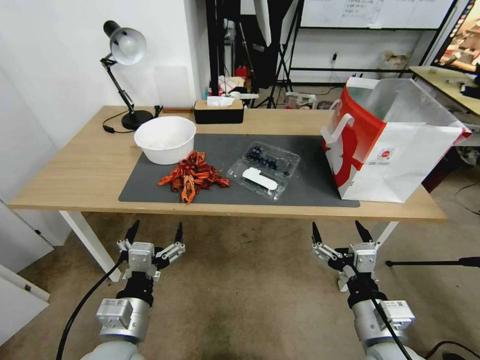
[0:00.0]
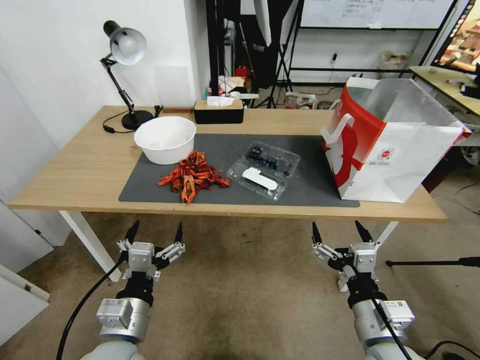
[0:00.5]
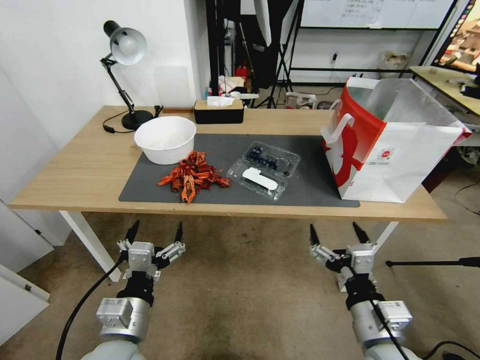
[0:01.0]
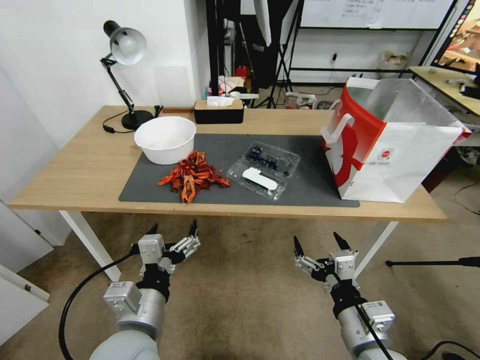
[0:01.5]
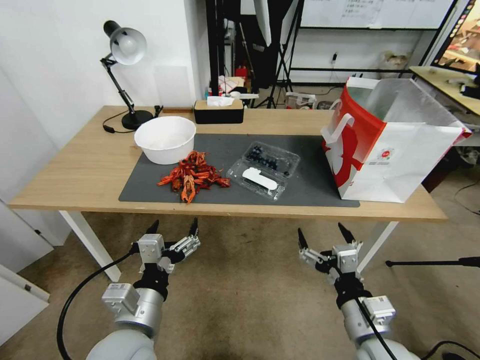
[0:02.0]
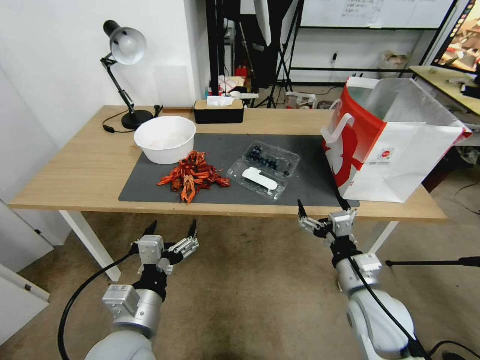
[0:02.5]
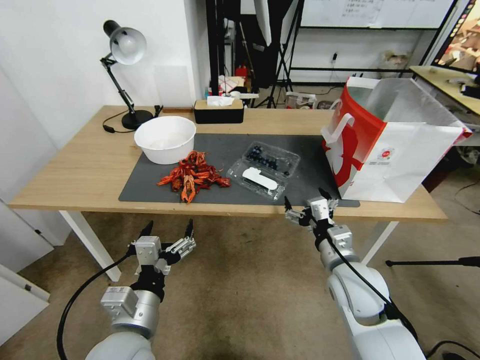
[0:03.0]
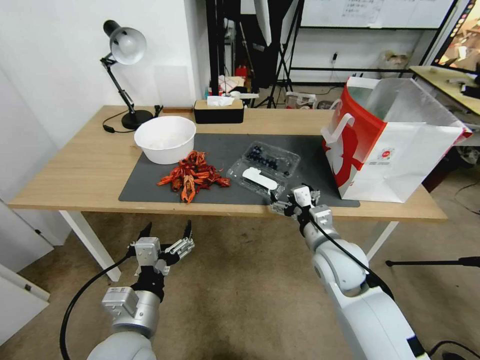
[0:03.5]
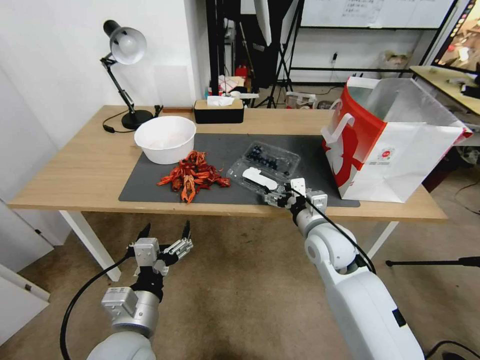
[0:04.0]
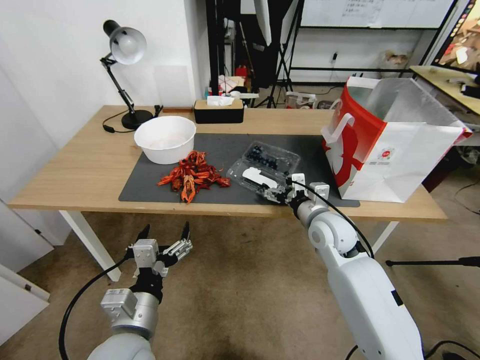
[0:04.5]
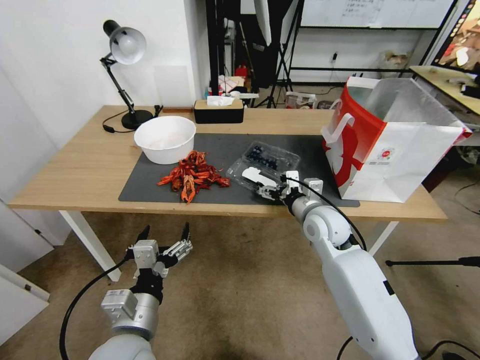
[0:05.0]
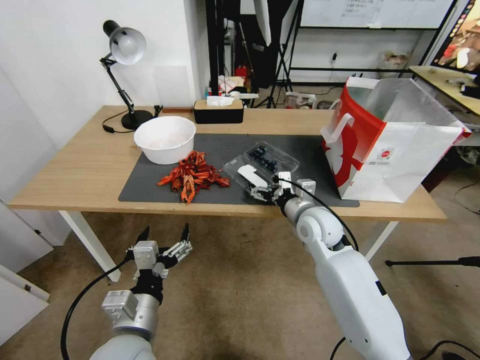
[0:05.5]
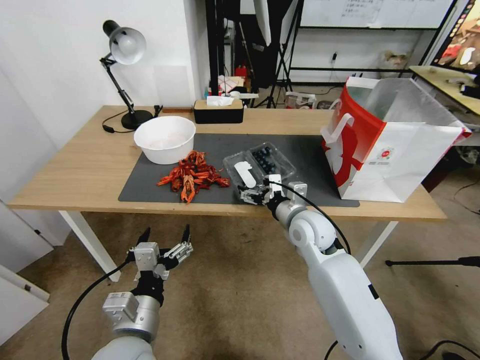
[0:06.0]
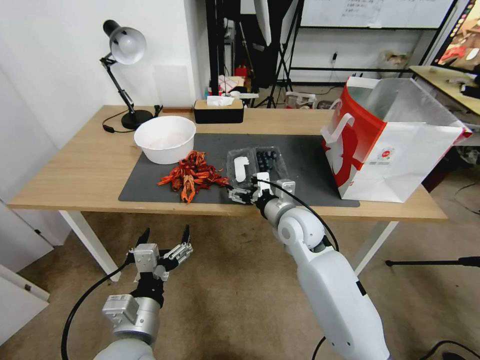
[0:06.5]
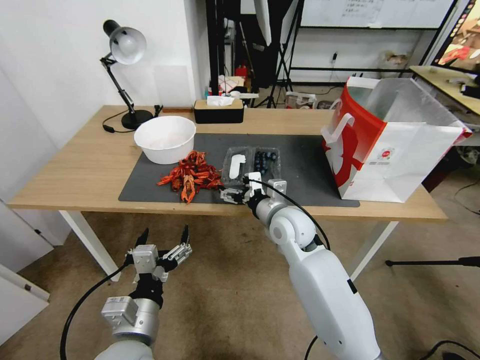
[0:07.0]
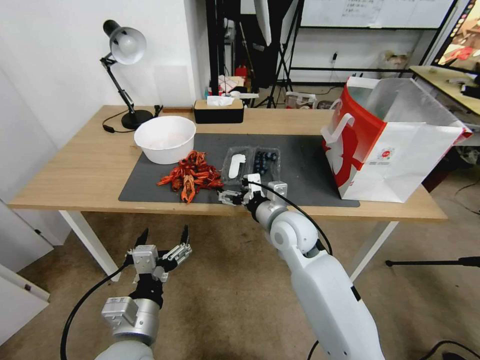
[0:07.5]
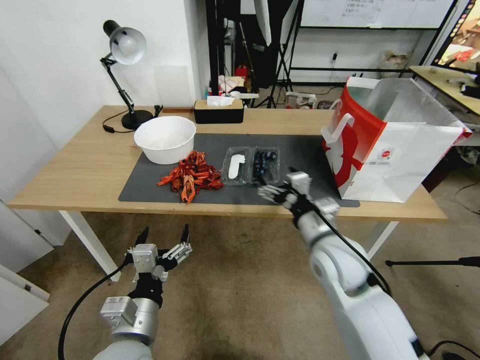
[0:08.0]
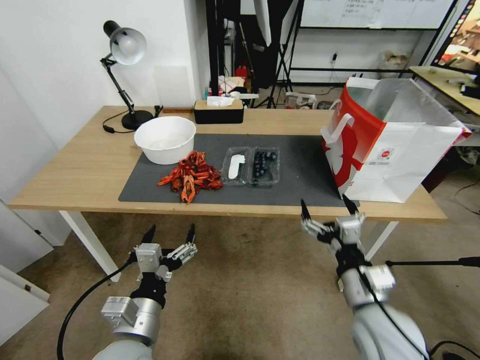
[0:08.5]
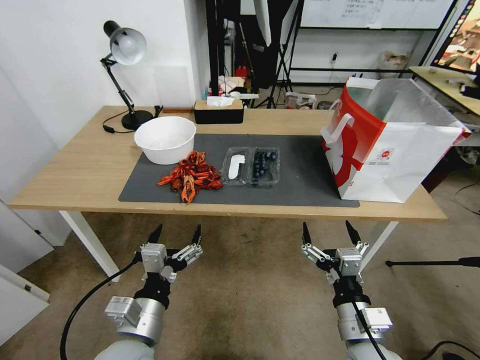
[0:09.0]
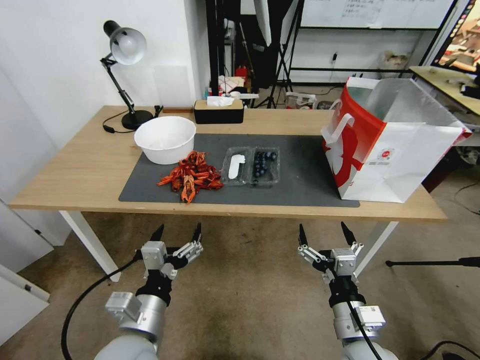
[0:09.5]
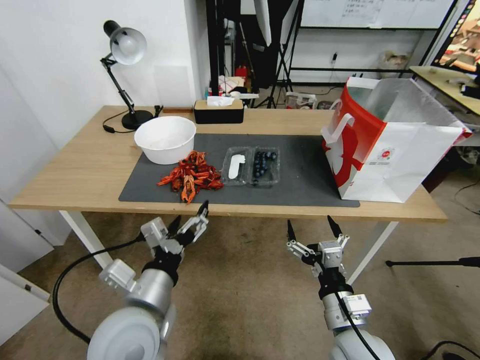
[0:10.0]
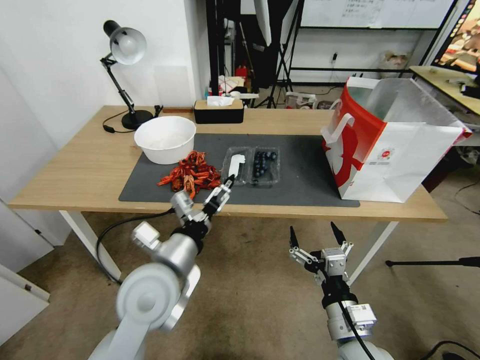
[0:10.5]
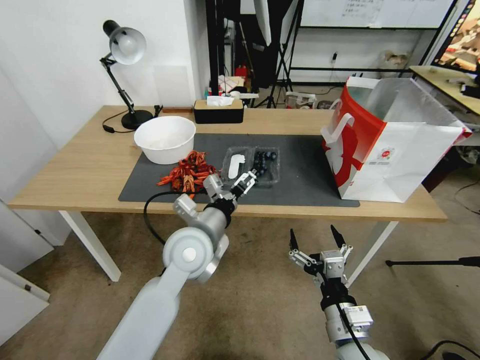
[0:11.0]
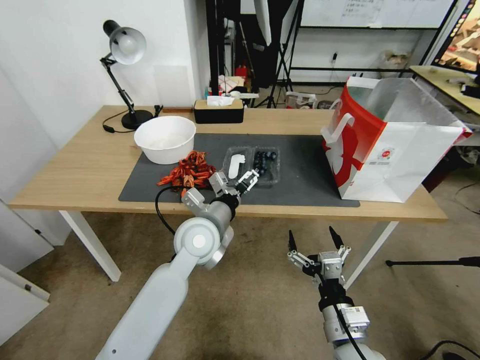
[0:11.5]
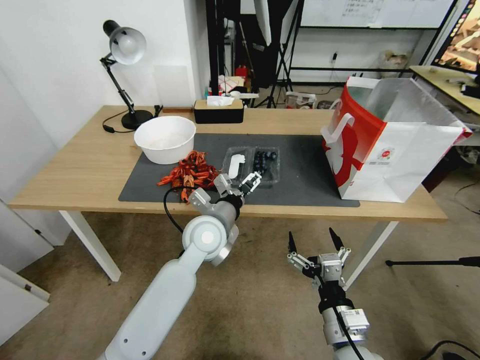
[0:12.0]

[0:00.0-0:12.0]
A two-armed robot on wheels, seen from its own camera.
Task of the whole recording: Close the takeout container lid, then place the container into the takeout bag.
0:02.0 to 0:04.0: The right gripper goes approximately 20 cm forward.
0:04.0 to 0:06.0: There are only small adjustments of the grippers.
0:06.0 to 0:08.0: The right gripper moves backward, about 10 cm.
0:08.0 to 0:10.0: The left gripper travels upward by approximately 5 cm. The right gripper travels backward and downward by some 15 cm.
0:10.0 to 0:12.0: The left gripper is displaced forward and to the right by some 20 cm.

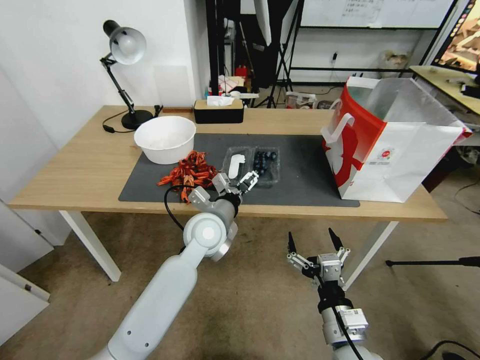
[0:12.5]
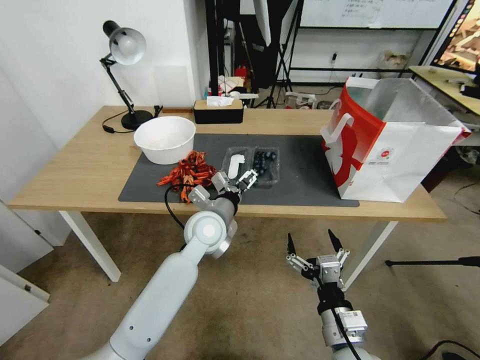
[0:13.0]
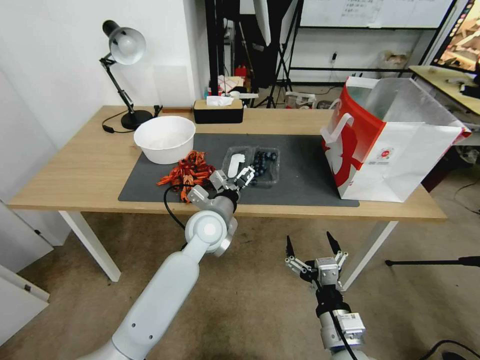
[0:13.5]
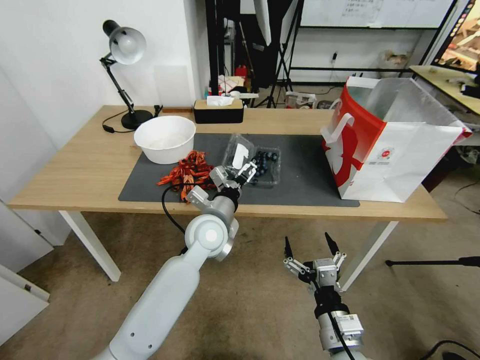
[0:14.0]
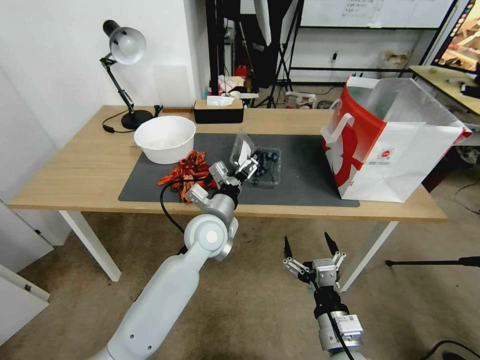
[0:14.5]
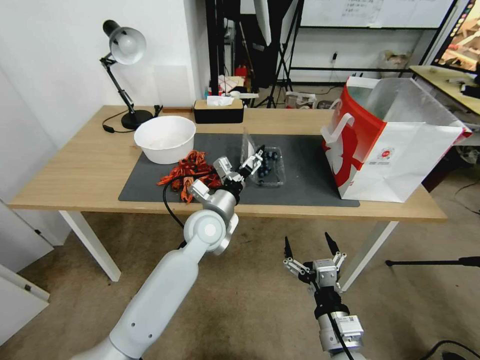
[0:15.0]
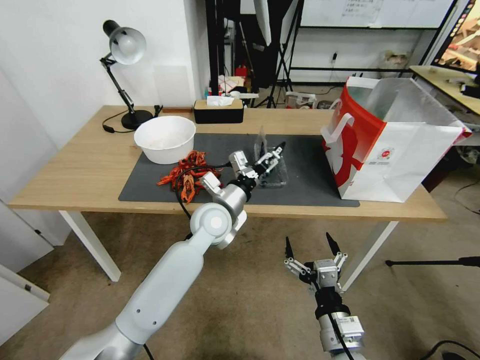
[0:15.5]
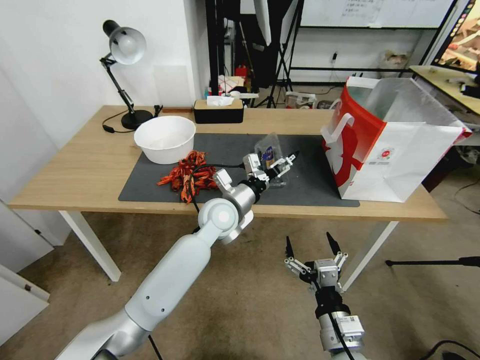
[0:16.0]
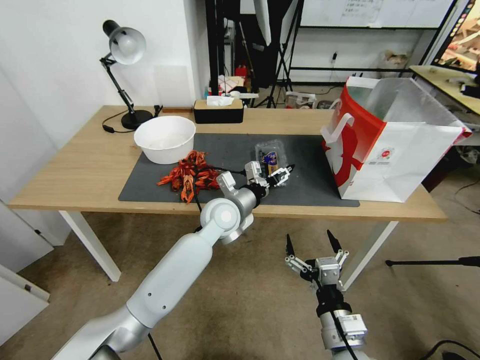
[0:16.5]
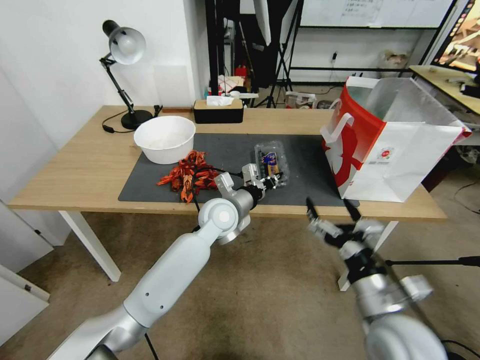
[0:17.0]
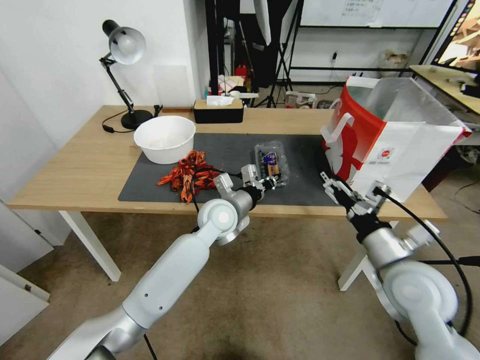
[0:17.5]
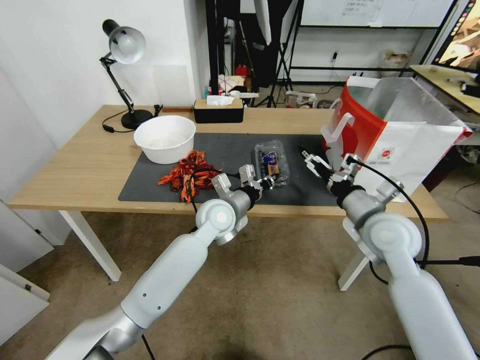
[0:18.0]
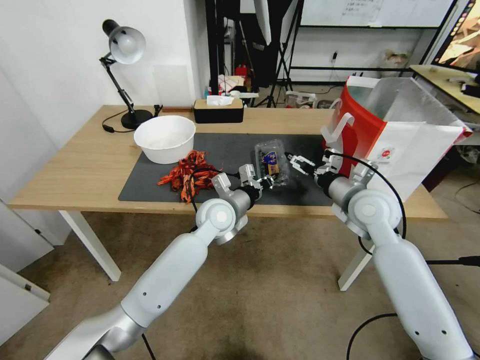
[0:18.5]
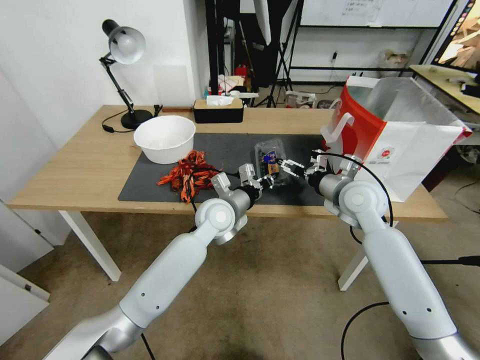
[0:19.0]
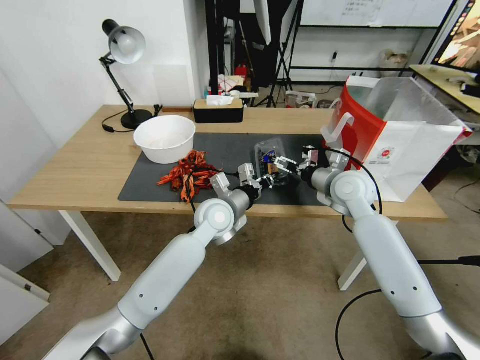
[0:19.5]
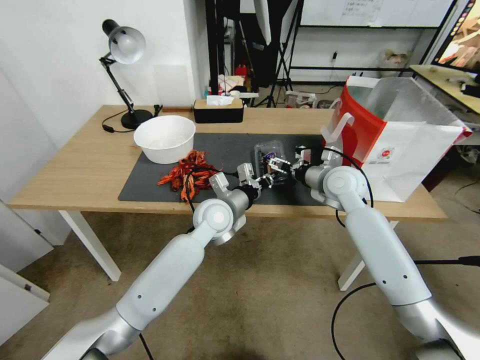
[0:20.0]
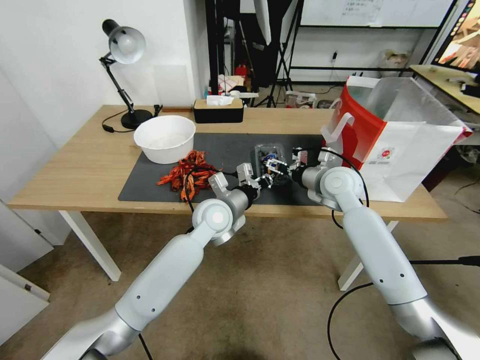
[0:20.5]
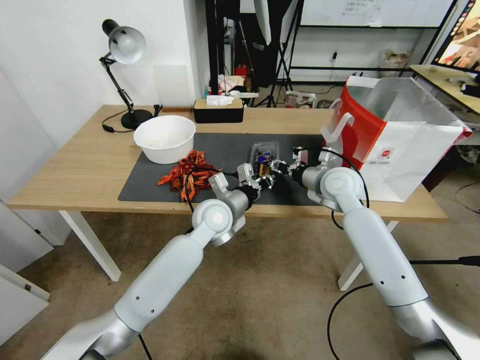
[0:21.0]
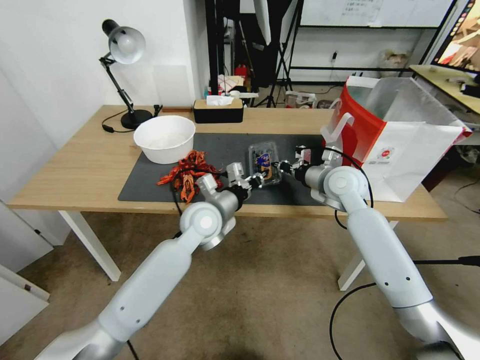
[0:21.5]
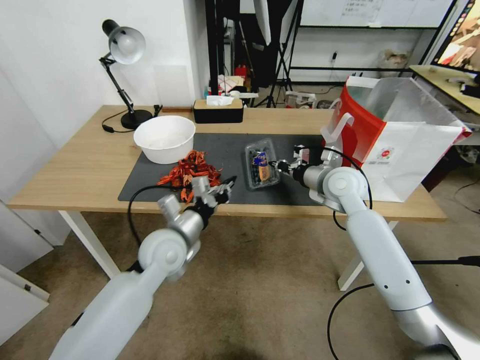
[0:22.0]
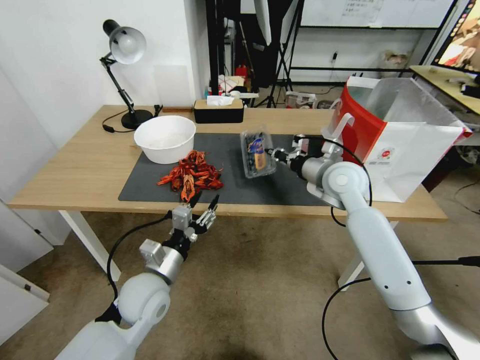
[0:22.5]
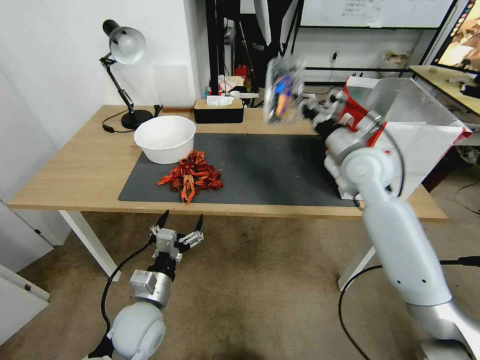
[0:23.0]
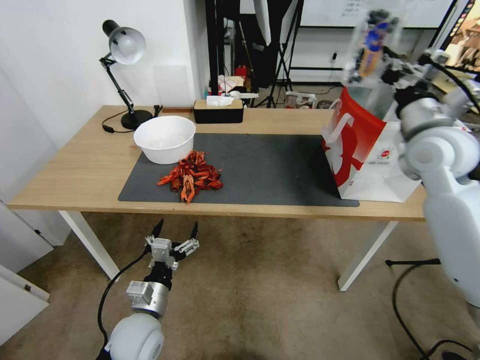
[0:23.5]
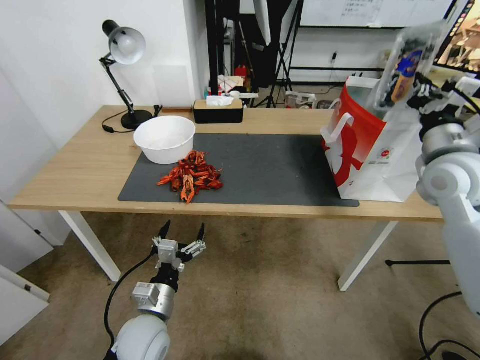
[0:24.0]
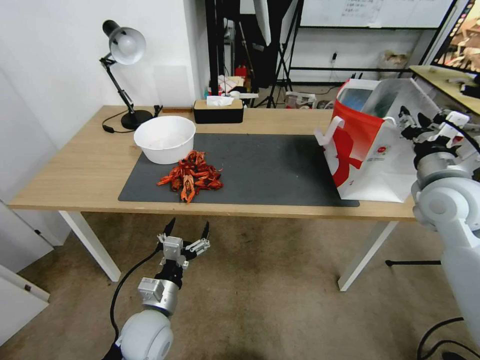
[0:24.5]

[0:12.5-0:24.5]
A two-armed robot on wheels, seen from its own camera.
Task of the whole recording: Close the takeout container lid, then place the container into the takeout bag.
0:12.5 to 0:14.5: The grippers stay close to where they were, moving slightly.
0:14.5 to 0:16.5: The left gripper goes about 5 cm forward.
0:16.5 to 0:18.5: The left gripper closes; the right gripper heads forward and upward, covering about 30 cm.
0:18.5 to 0:20.5: The right gripper moves forward, some 10 cm.
0:20.5 to 0:22.5: The right gripper closes up. The left gripper moves backward and to the left, approximately 20 cm, and opens up.
0:22.5 to 0:24.5: The right gripper goes about 20 cm to the right and backward, and opens its fingers. The left gripper moves downward and backward, approximately 10 cm, and opens up.

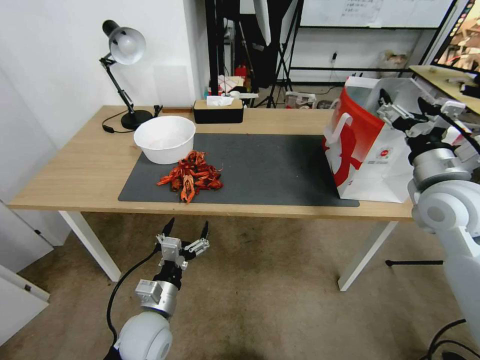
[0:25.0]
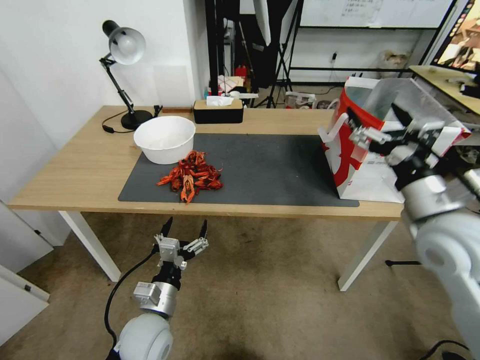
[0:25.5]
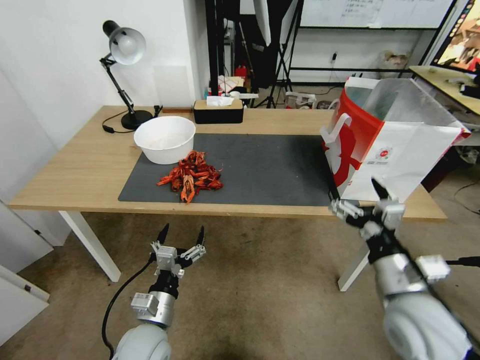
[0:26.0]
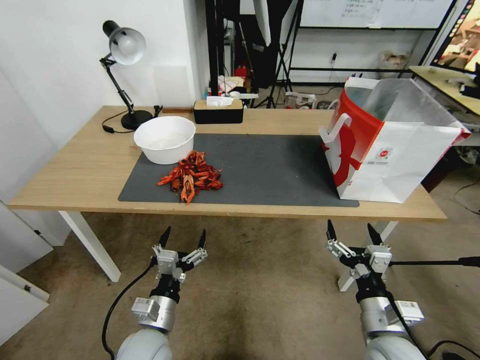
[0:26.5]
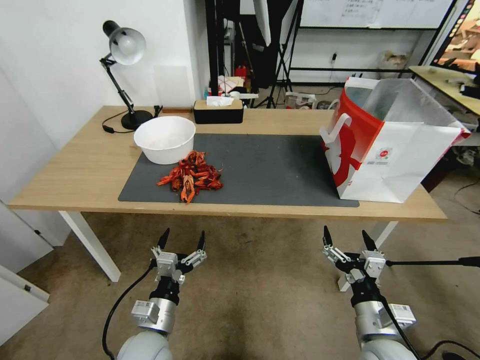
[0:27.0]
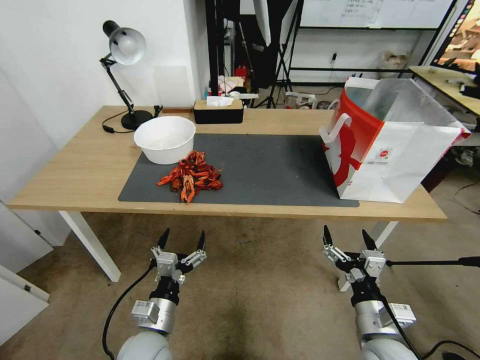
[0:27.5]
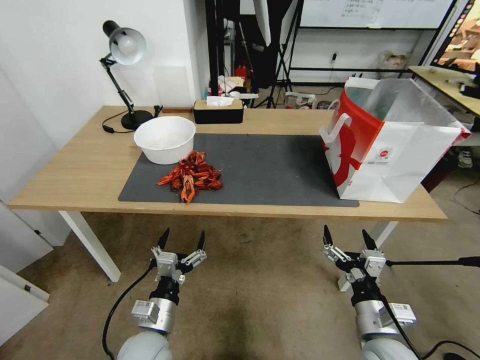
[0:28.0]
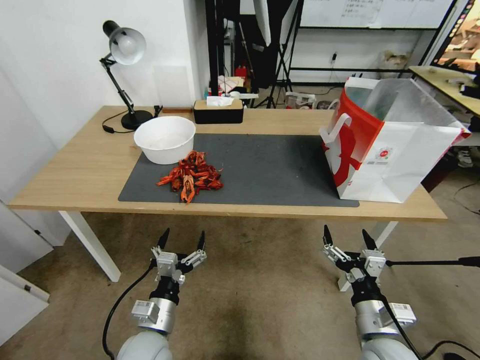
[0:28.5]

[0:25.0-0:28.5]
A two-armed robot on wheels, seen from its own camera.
Task of the whole recording: Close the takeout container lid, then place the container into the takeout bag.
0:25.0 to 0:27.0: The right gripper shifts roughly 30 cm downward and backward.
0:27.0 to 0:28.5: Both grippers stay put.
